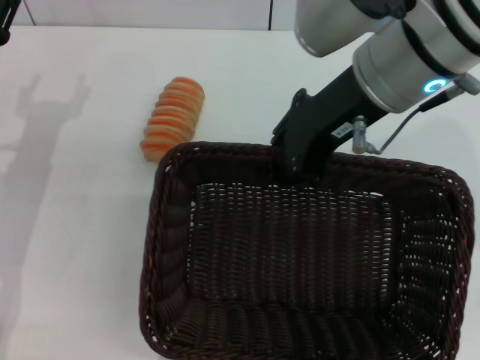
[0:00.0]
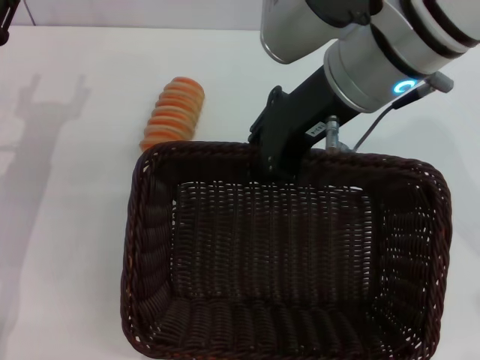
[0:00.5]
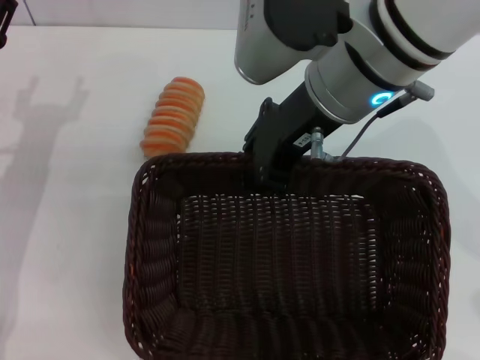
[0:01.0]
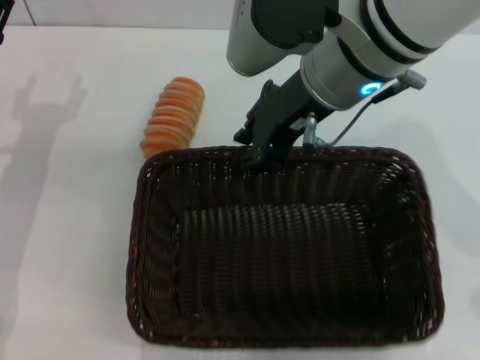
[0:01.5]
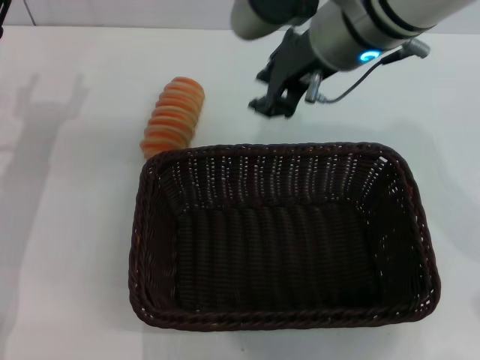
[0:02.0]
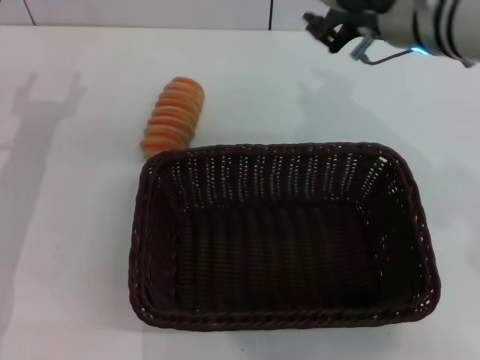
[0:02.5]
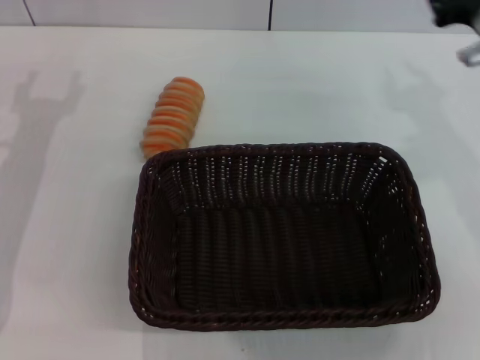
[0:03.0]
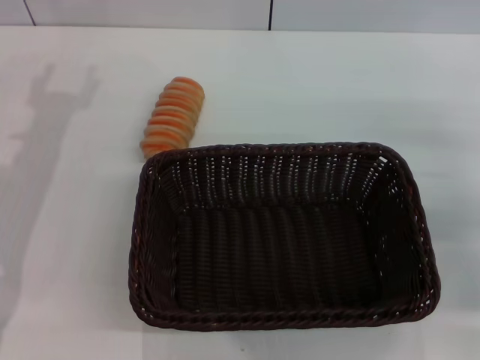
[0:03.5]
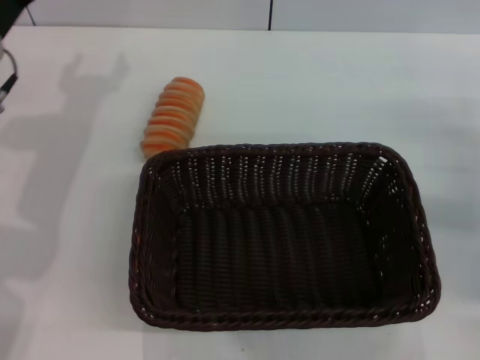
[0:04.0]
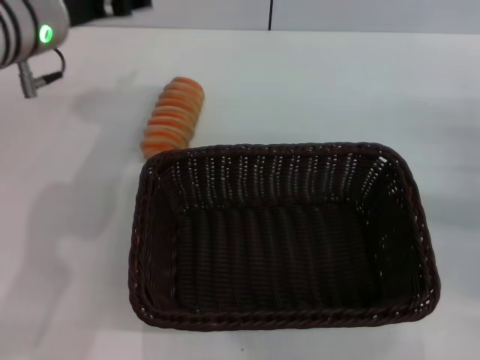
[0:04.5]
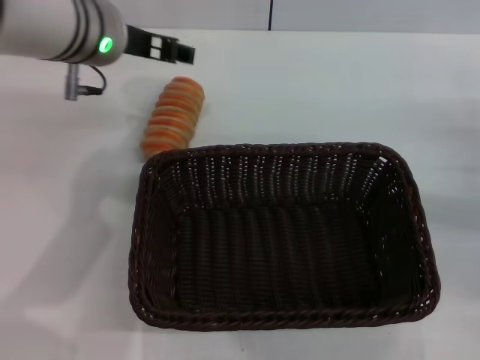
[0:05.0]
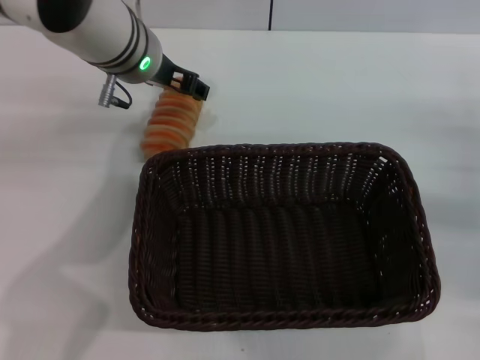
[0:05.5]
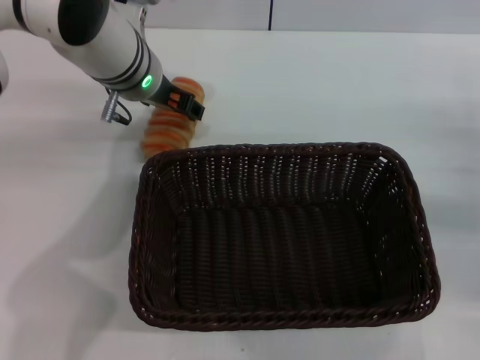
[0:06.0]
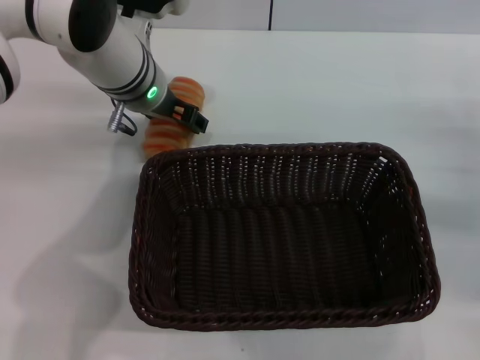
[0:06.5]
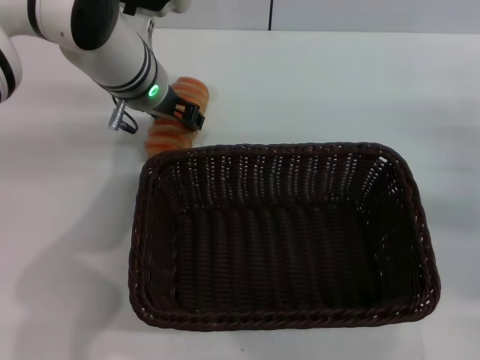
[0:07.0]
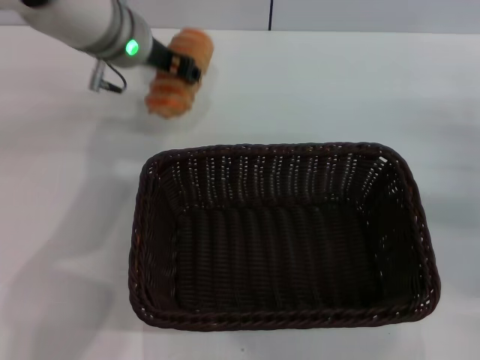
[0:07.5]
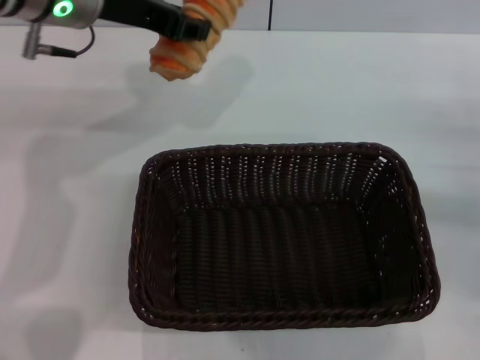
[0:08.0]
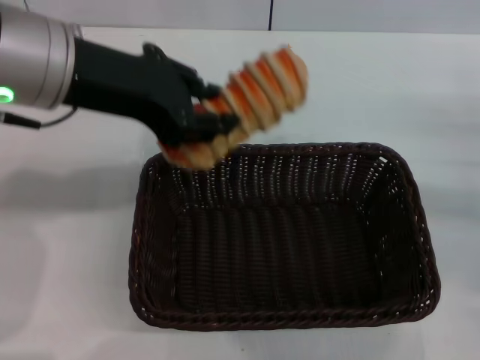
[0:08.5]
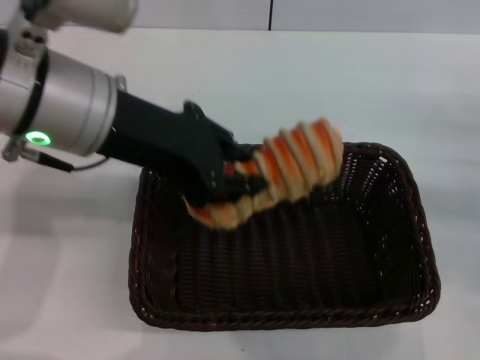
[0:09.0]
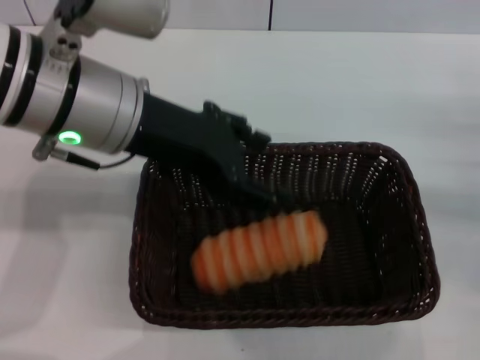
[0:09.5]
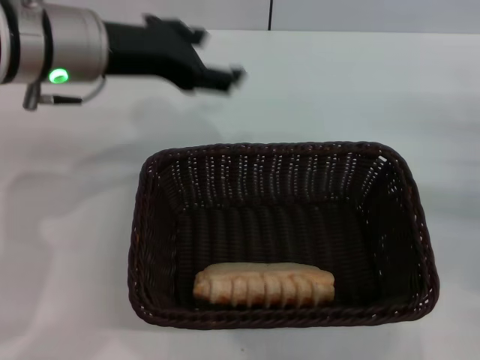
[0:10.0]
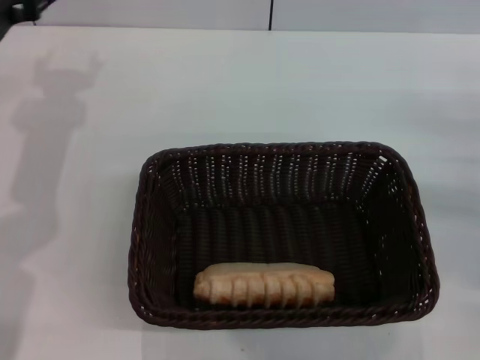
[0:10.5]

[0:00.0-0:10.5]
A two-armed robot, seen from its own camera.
Step, 0:02.0 to 0:07.5: Pick up the long bread with the left gripper.
Step, 0:08.0 to 0:09.0: Place the long bread into the dark basket with the left gripper.
0:00.0 to 0:02.0: The right gripper opens its fingers.
0:02.0 to 0:04.0: The right gripper heads to the right and downward, covering some 30 cm. The left gripper shifts roughly 5 cm upward.
0:04.0 to 0:06.5: The left gripper moves to the right and forward, some 15 cm.
0:06.5 to 0:08.5: The left gripper travels upward, backward and to the left by about 20 cm, and closes up.
0:08.5 to 0:10.5: The left gripper is displaced downward, to the left and forward by about 20 cm, and opens.
